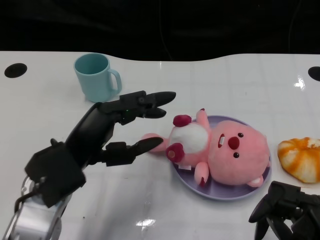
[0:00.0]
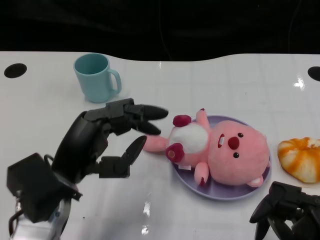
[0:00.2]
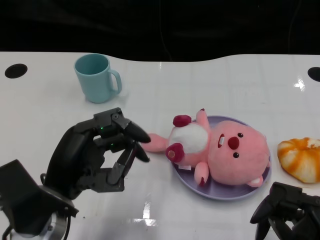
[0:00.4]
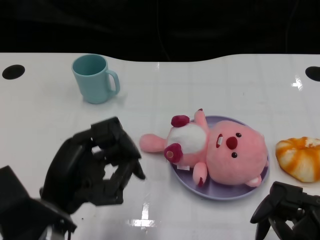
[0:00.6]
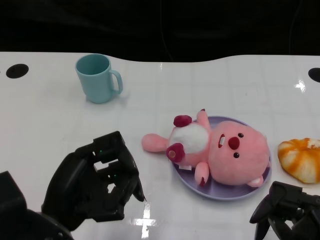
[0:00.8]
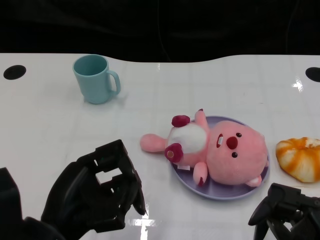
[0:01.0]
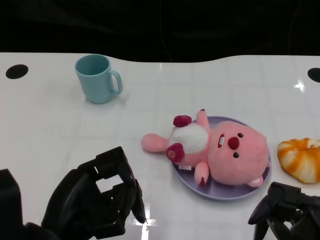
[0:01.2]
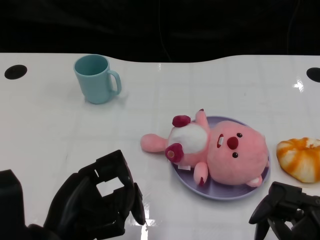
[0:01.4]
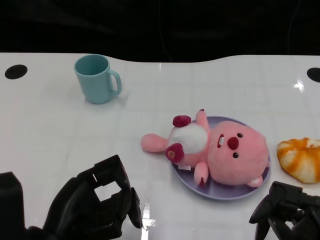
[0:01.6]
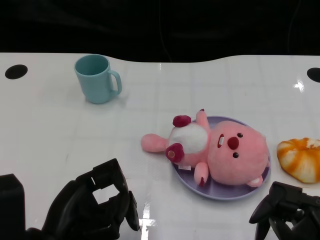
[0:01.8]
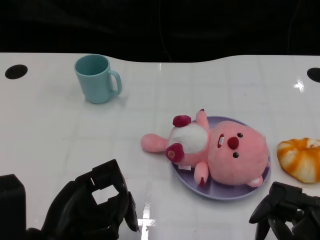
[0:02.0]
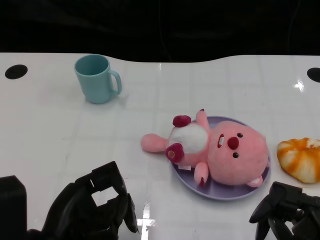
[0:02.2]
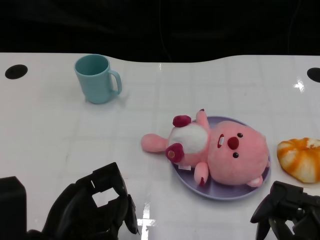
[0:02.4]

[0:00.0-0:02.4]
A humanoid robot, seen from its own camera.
Task of the whole recording: Pick up the doll on one side of the plate and place it into the plate.
0:00.0 to 0:01.2: The left hand heads backward, covering about 10 cm.
0:01.2 to 0:02.4: The hands make only small movements.

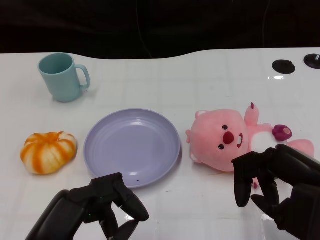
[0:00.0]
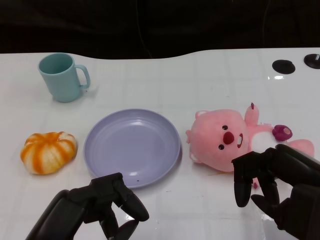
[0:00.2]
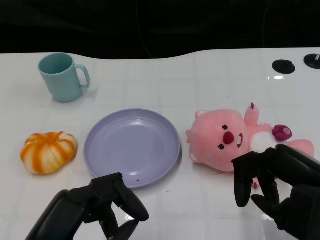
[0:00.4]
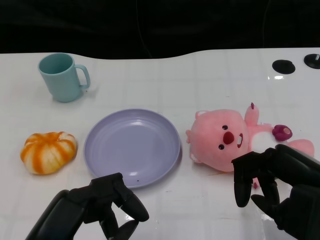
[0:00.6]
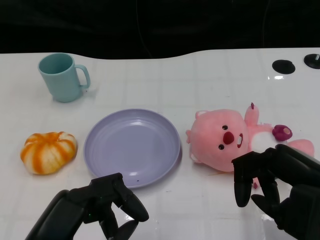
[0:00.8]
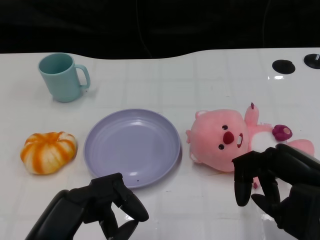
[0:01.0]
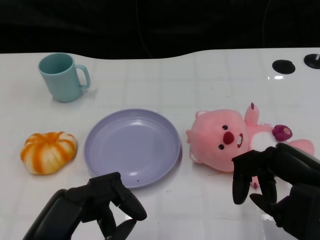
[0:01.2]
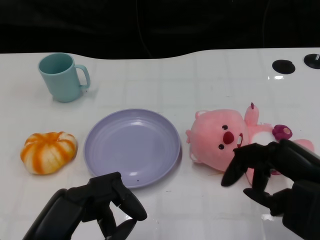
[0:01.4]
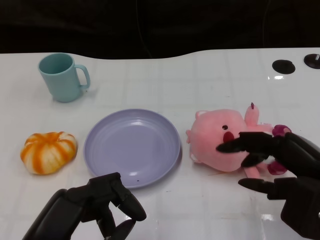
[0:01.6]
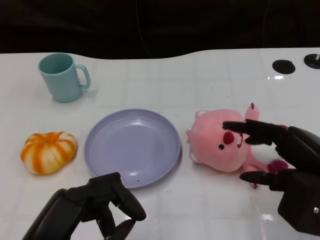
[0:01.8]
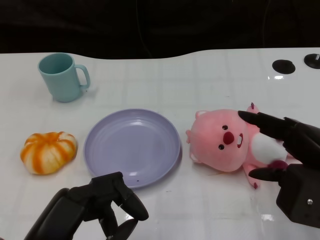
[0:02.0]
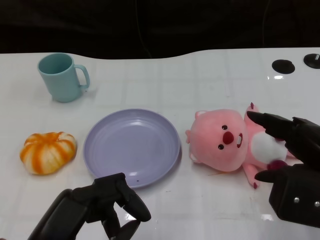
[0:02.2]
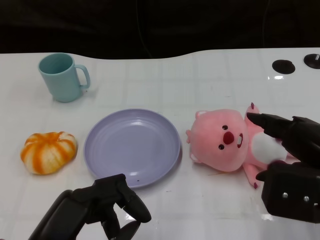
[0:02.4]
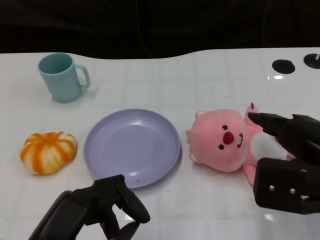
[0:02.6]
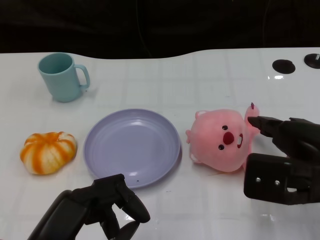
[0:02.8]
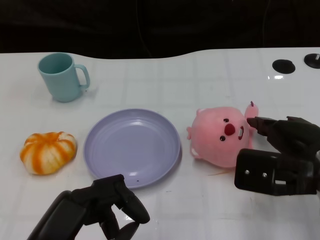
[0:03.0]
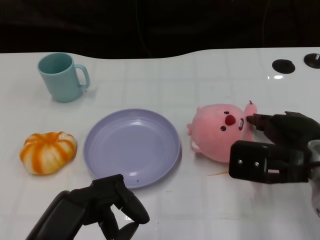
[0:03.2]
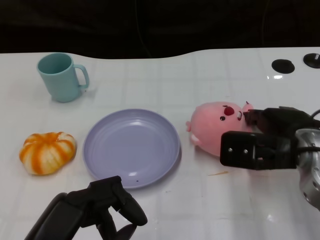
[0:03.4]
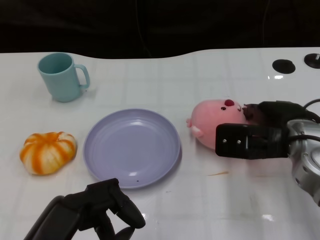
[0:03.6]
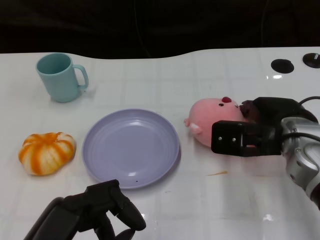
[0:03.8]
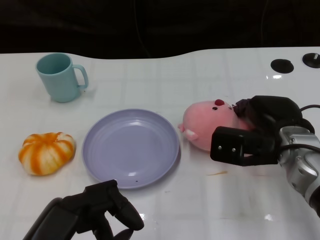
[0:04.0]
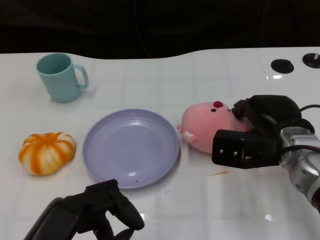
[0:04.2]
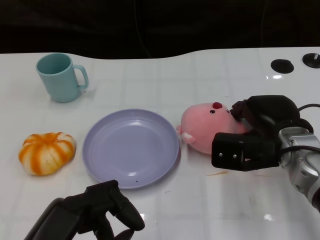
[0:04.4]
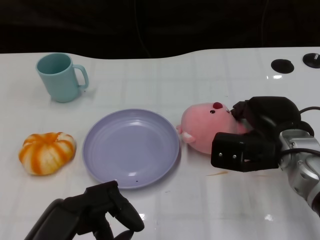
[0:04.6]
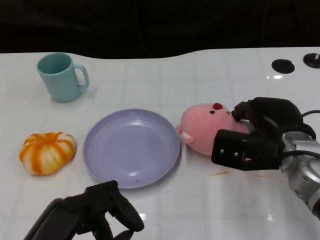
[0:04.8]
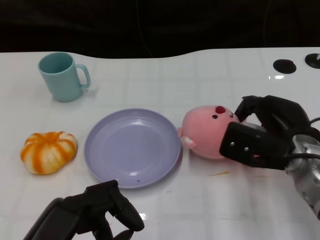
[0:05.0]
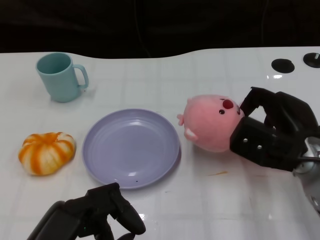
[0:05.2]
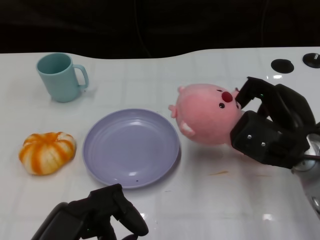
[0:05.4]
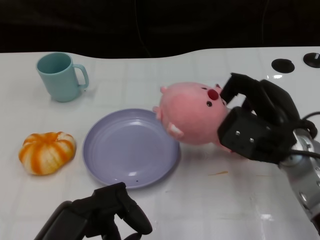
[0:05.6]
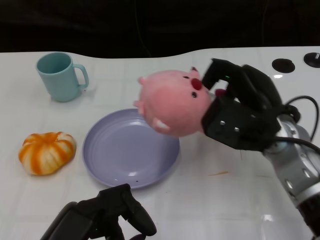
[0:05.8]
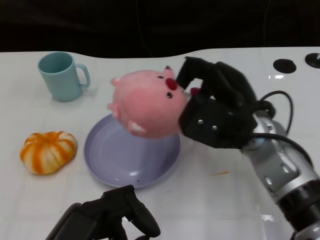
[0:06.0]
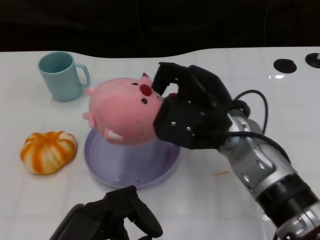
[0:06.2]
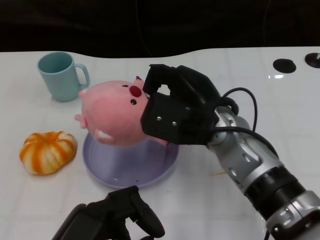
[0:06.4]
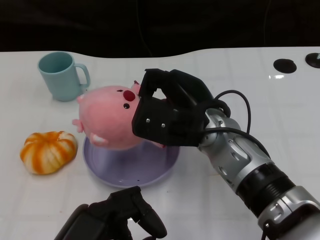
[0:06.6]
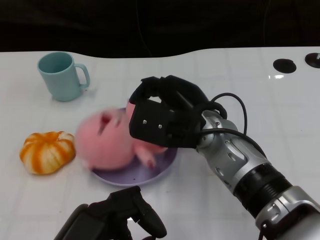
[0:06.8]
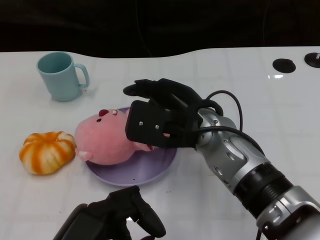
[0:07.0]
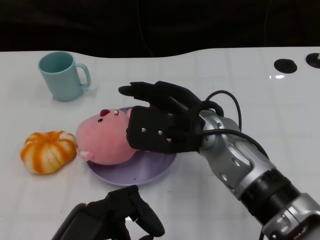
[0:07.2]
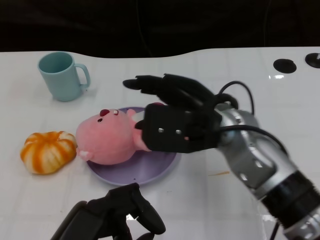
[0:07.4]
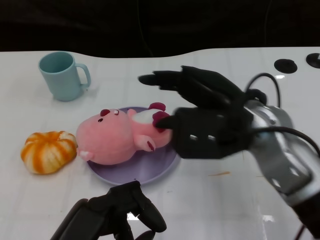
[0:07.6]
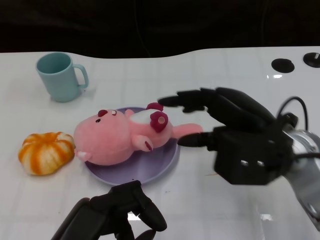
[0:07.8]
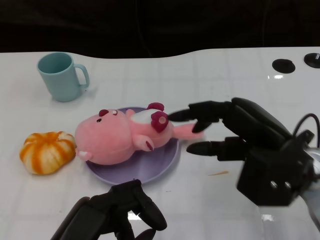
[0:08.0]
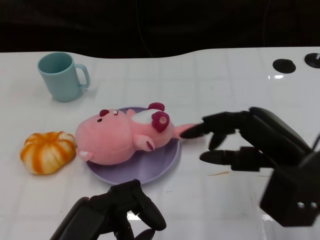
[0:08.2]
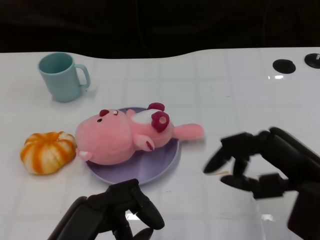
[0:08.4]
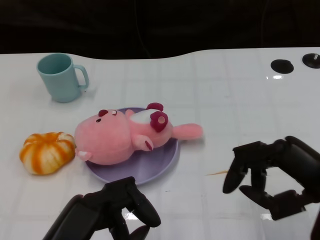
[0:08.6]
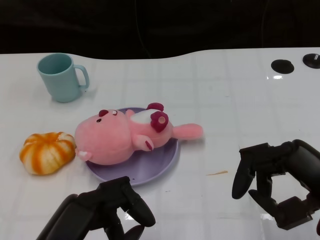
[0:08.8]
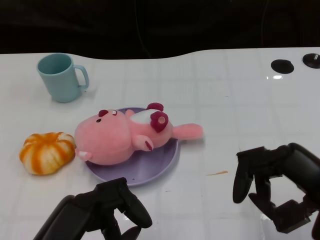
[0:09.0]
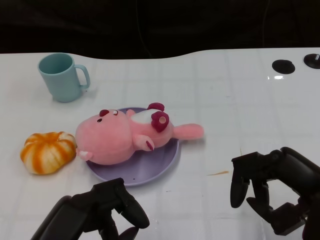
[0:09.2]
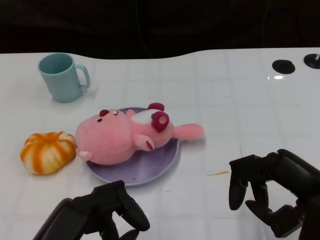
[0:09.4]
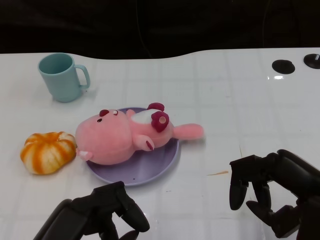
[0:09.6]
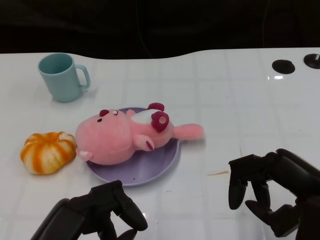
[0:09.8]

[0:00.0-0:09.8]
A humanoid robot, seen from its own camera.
Task of the whole recording: Pick up the doll on the other side of the plate and place it into the plate.
Step, 0:01.2 to 0:05.6: Grasp the pink doll with the right gripper.
Step, 0:05.8 to 0:07.6: Place the pink doll into the plate with the right gripper.
0:02.8 to 0:04.2: The right hand heads forward and downward, covering some 10 cm.
0:05.6 to 0:07.0: The right hand moves to the left, roughly 10 cm.
0:07.0 to 0:08.4: The right hand is displaced to the right and backward by about 20 cm.
0:08.4 to 0:09.8: The hands stay close to where they were, moving slightly.

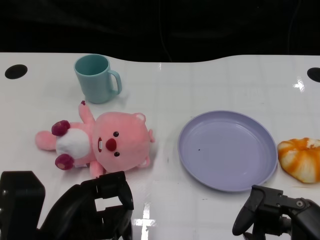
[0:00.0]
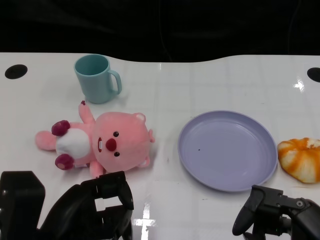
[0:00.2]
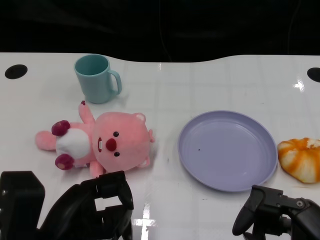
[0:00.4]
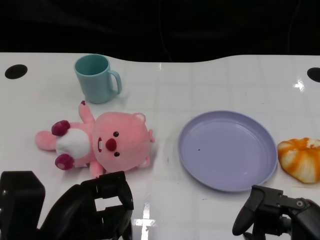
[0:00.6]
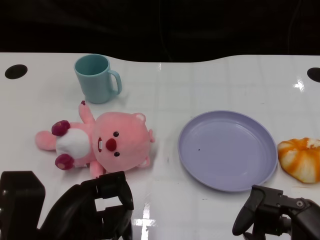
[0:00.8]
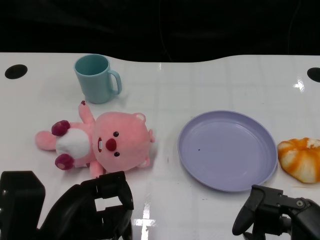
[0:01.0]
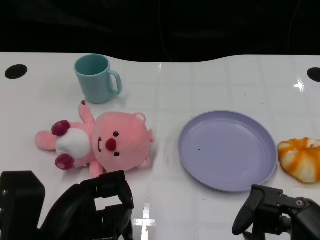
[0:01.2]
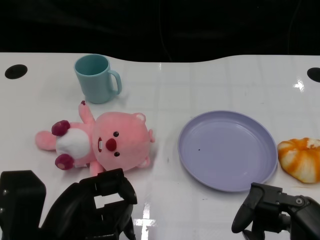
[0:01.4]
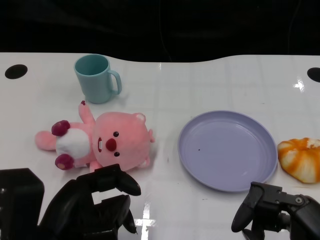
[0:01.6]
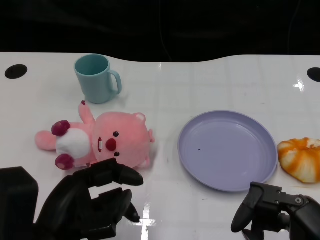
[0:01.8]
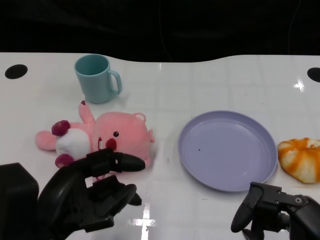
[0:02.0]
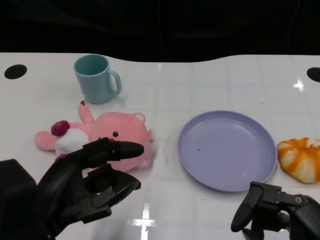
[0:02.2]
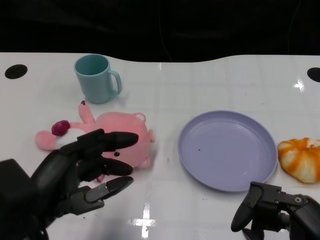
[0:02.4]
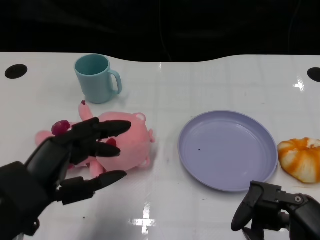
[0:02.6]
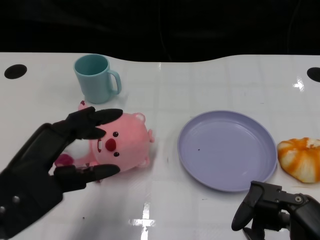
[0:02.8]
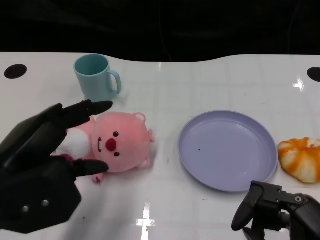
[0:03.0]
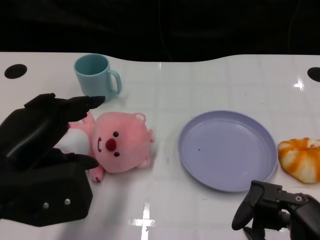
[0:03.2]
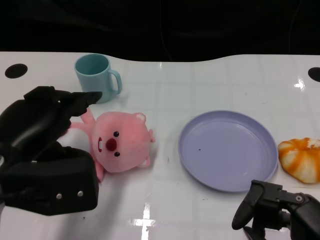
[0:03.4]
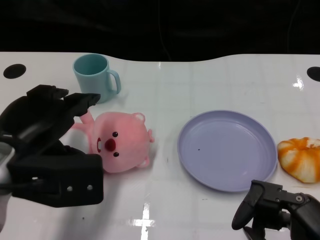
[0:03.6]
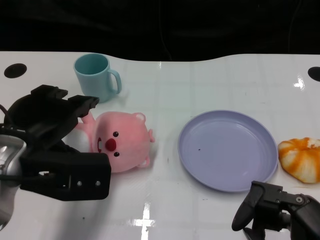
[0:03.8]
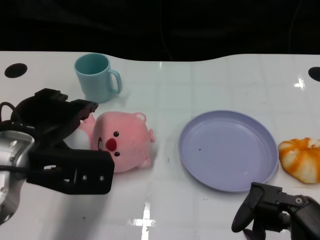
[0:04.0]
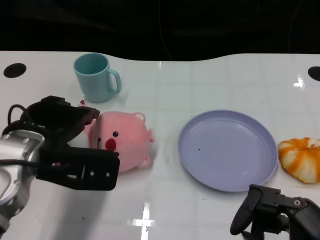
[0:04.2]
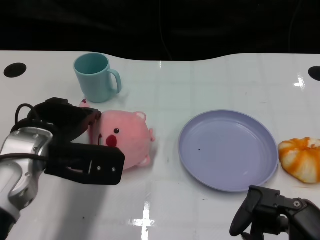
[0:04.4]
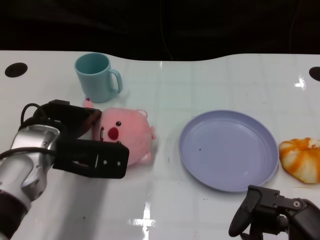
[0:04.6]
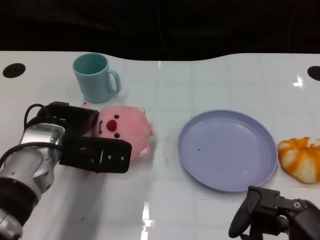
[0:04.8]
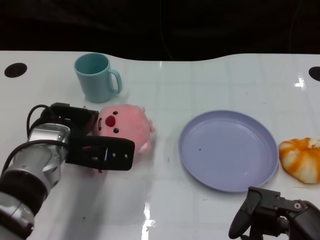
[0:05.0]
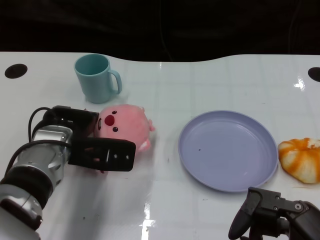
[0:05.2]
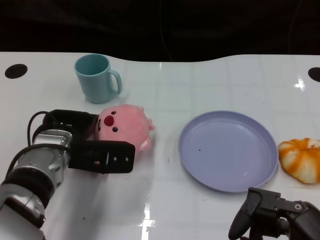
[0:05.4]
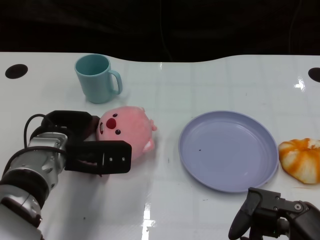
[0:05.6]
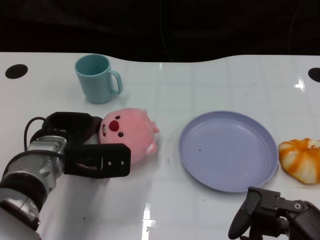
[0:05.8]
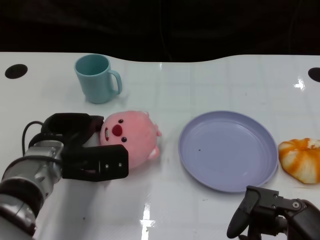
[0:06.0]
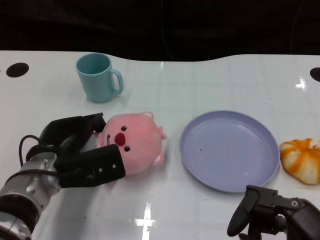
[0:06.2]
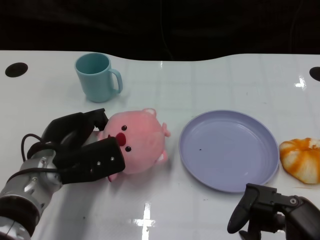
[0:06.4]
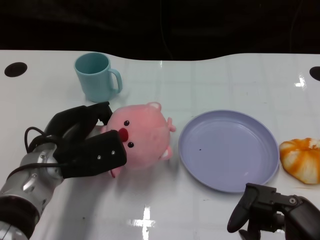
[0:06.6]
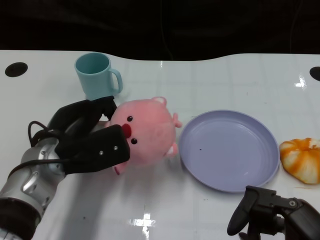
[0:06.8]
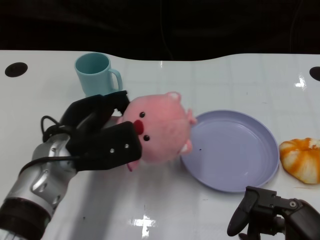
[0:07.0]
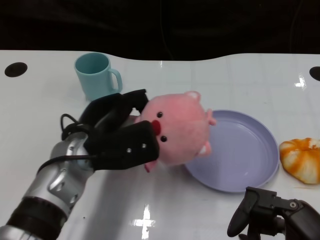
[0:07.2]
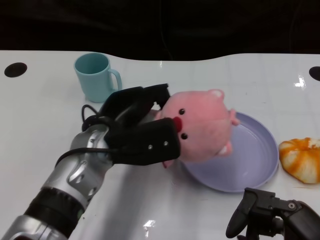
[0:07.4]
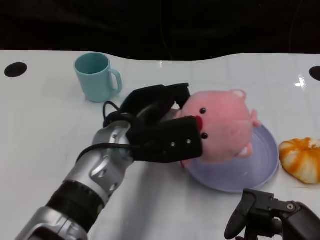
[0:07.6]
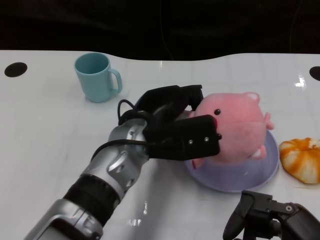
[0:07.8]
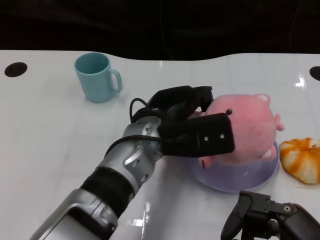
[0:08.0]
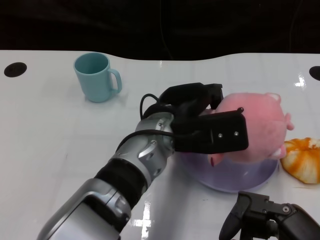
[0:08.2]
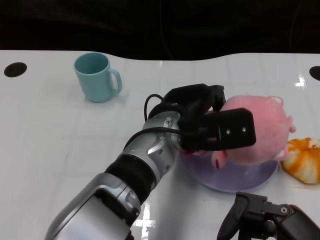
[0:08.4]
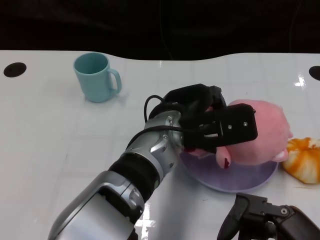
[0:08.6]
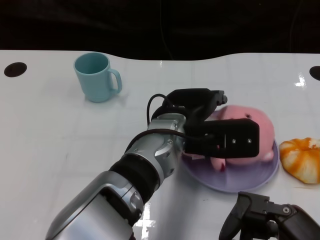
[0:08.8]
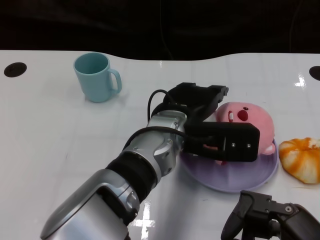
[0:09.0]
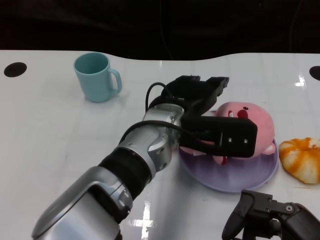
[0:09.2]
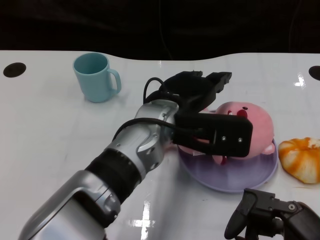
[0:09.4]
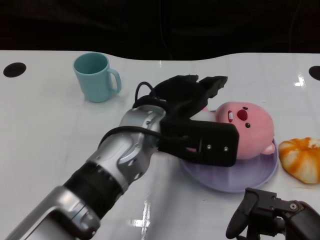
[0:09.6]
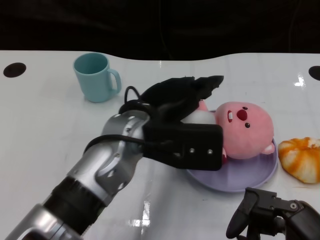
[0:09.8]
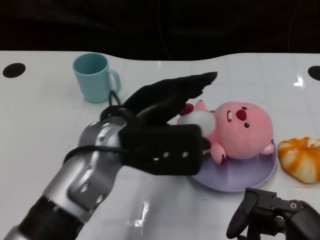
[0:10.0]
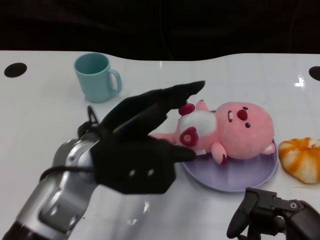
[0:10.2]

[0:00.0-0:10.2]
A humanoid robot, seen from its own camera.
Task of the whole recording: Pick up the doll on one side of the plate and place it into the plate.
Step, 0:01.2 to 0:06.2: Grasp the pink doll with the left gripper.
Step, 0:06.4 to 0:09.2: Place the pink doll into the plate with the left gripper.
0:01.4 to 0:03.0: The left hand moves upward, approximately 5 cm.
0:03.0 to 0:04.4: The left hand heads forward, covering approximately 10 cm.
0:04.4 to 0:05.8: The left hand moves downward, about 5 cm.
0:05.8 to 0:07.2: The left hand ends up approximately 5 cm from where it was.
0:07.2 to 0:08.8: The left hand heads to the right, covering about 15 cm.
0:08.8 to 0:10.2: The left hand goes some 10 cm to the left.
